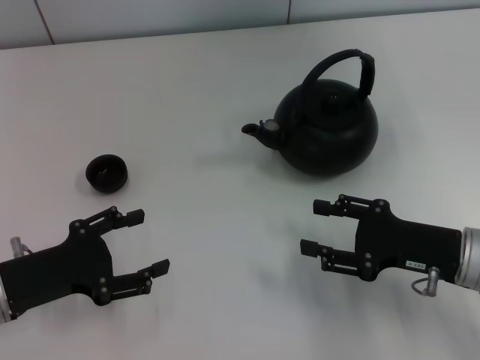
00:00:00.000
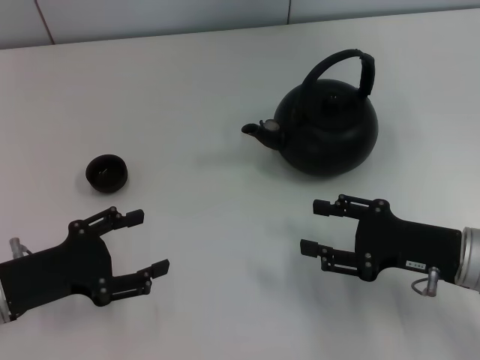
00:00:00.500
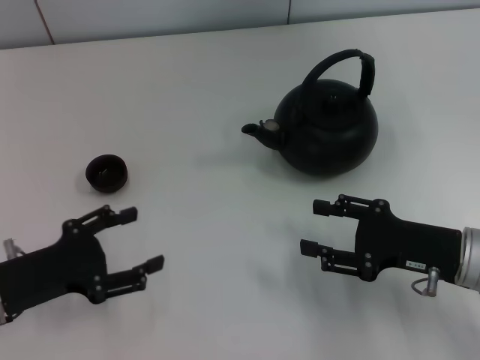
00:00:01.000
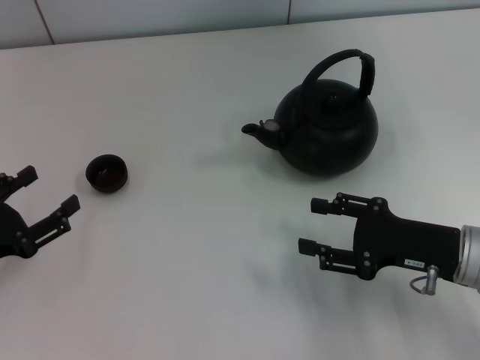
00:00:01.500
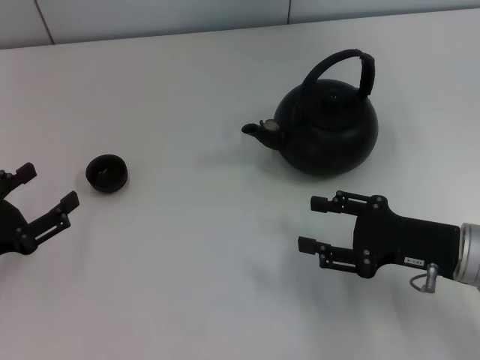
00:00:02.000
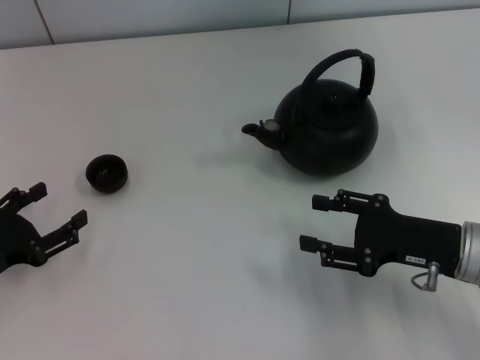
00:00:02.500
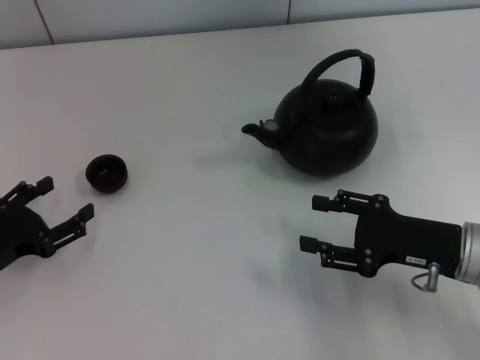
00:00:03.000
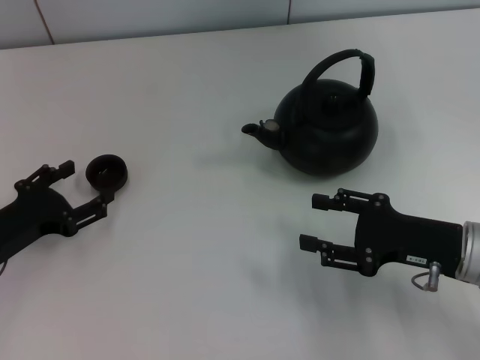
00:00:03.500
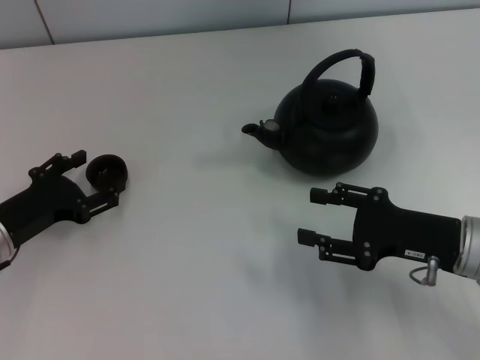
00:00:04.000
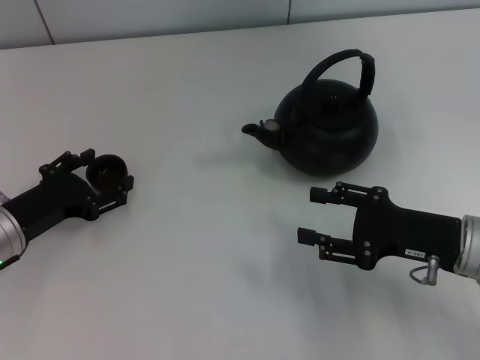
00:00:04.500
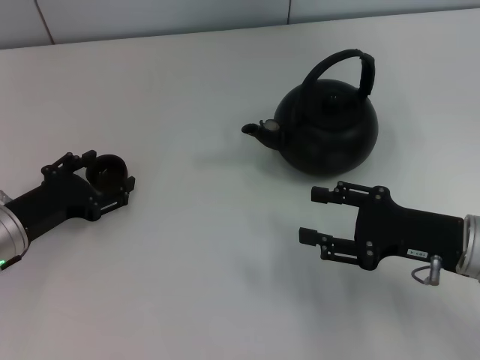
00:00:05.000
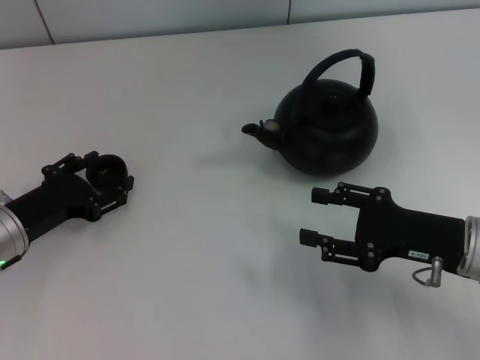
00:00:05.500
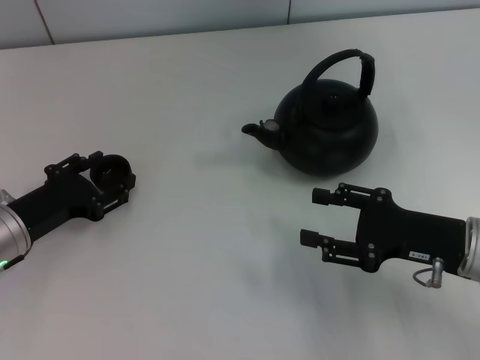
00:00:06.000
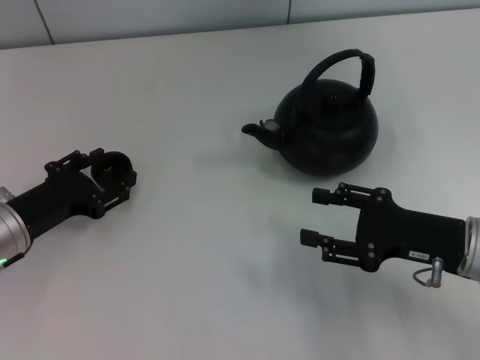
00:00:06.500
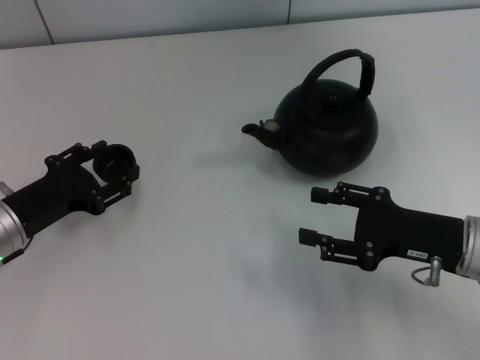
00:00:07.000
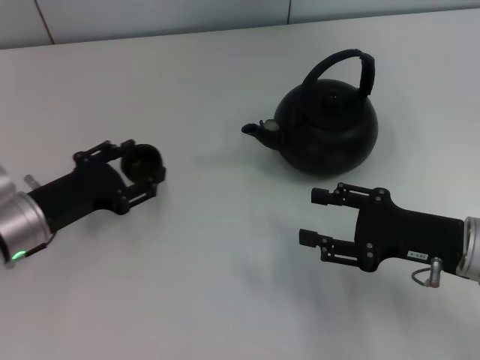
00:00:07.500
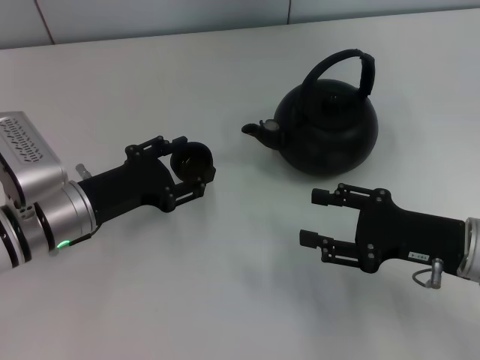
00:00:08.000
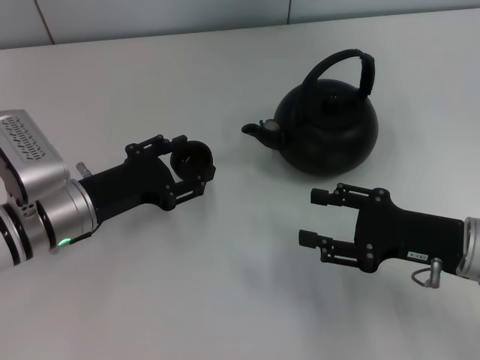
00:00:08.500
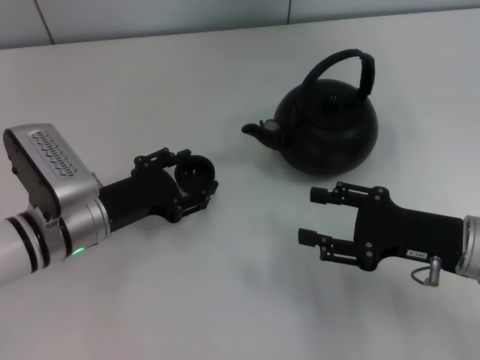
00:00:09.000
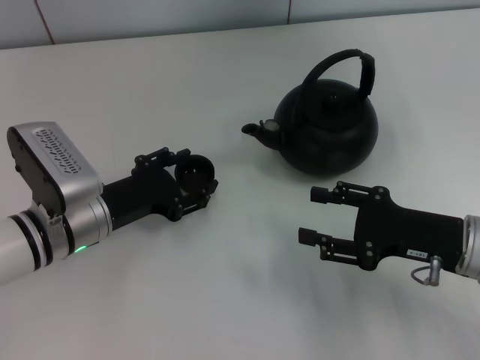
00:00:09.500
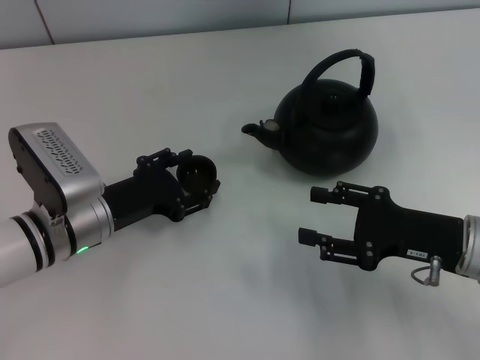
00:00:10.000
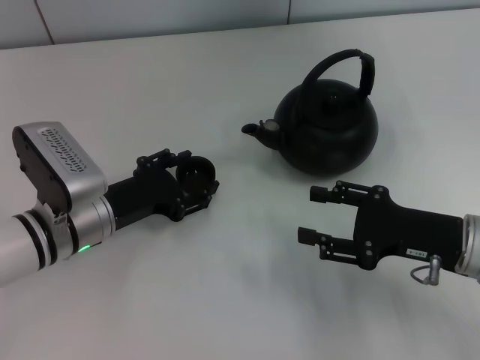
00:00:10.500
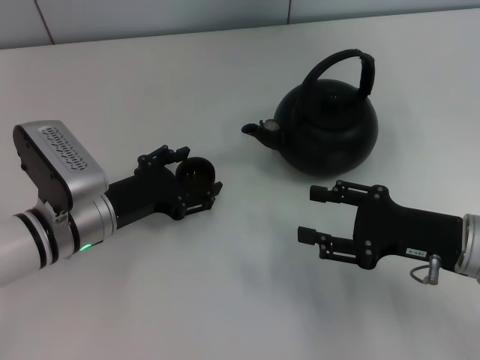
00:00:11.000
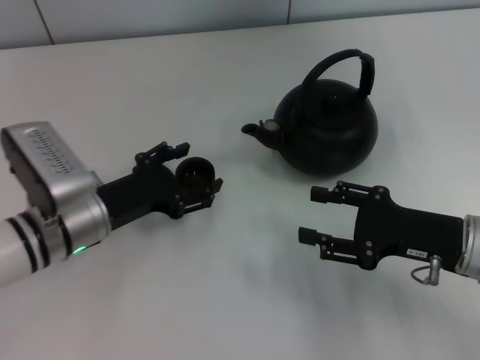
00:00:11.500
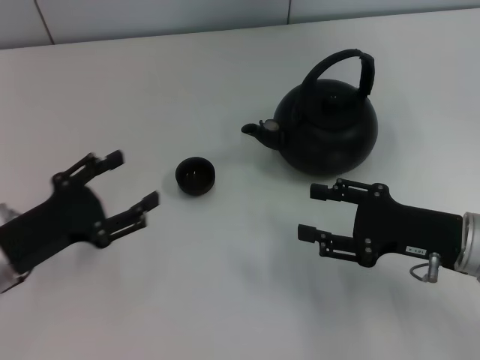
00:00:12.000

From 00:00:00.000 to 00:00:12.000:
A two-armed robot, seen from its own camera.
Task of the whole recording: Grasp the handle of the teapot with one hand and pour tea into the teacup.
Step, from 00:00:00.000 to 00:00:06.500: Pick up the teacup with the left gripper.
Step, from 00:00:07.000 to 00:00:11.500: Place the teacup in the center of view with the left gripper.
From 00:00:00.000 to 00:00:02.000: The left gripper moves to the left, about 5 cm.
From 00:00:02.000 to 00:00:04.000: The left gripper is displaced forward by approximately 5 cm.
From 00:00:04.000 to 00:00:06.000: The left gripper closes.
From 00:00:06.000 to 00:00:08.000: The left gripper goes some 5 cm to the right.
From 00:00:08.000 to 00:00:10.000: The grippers move only a little.
From 00:00:10.000 to 00:00:12.000: The left gripper travels to the left and backward by approximately 10 cm, and opens its fingers.

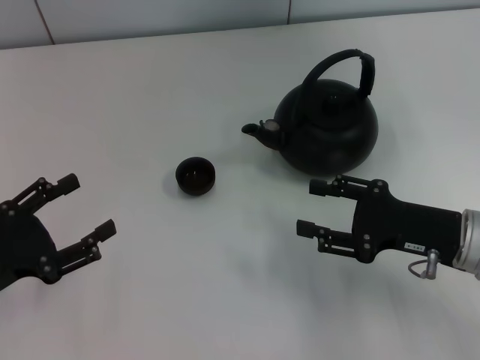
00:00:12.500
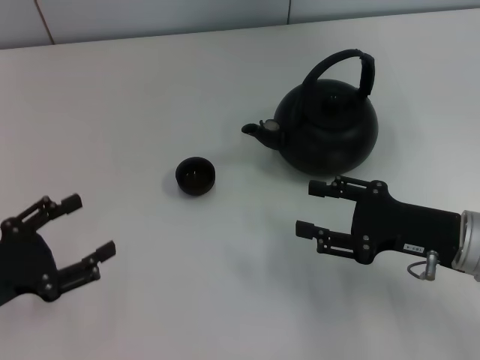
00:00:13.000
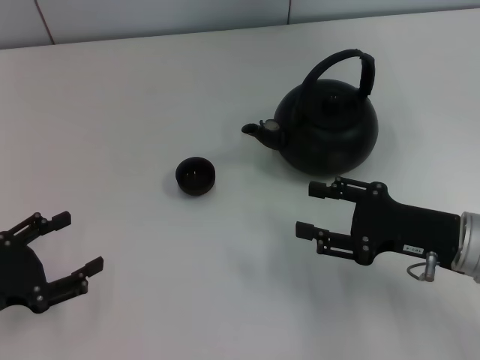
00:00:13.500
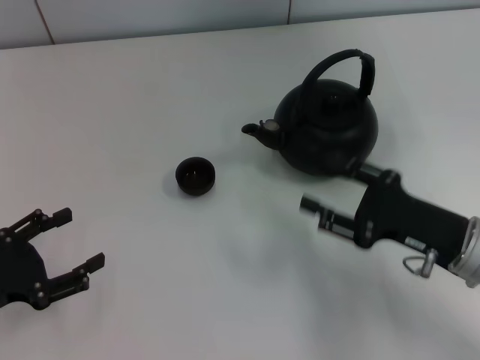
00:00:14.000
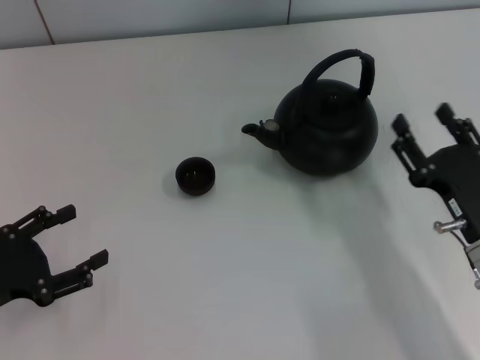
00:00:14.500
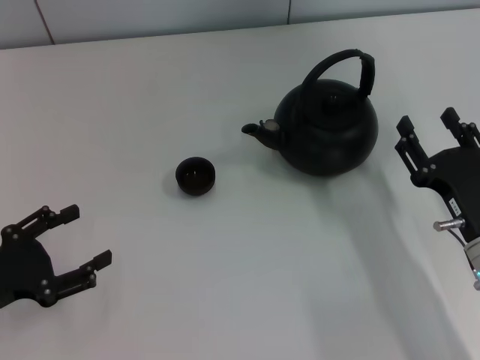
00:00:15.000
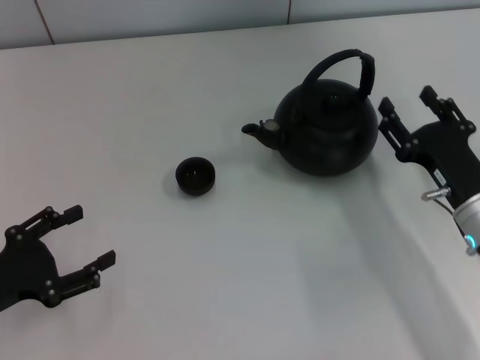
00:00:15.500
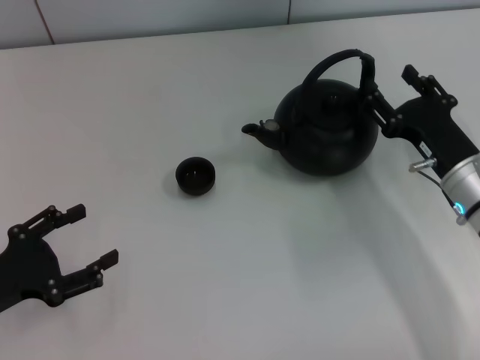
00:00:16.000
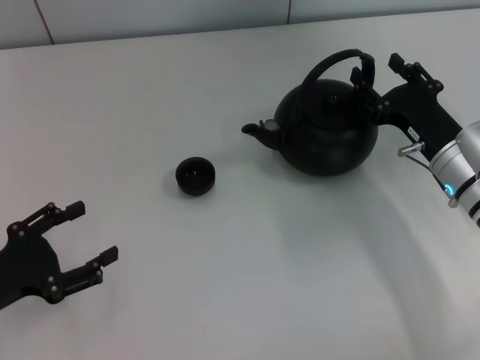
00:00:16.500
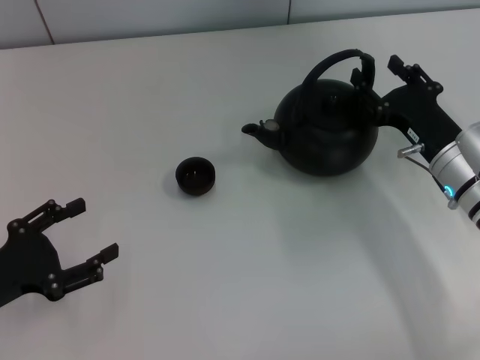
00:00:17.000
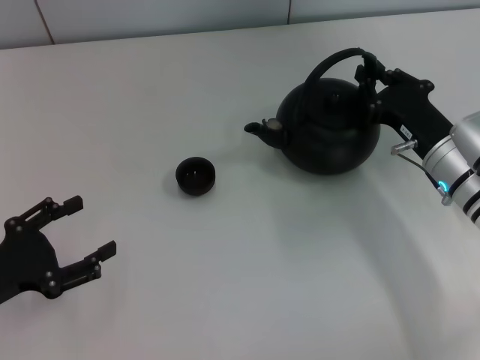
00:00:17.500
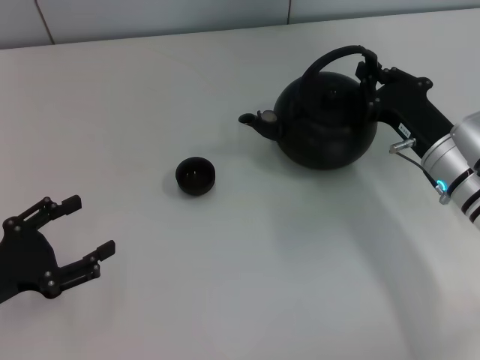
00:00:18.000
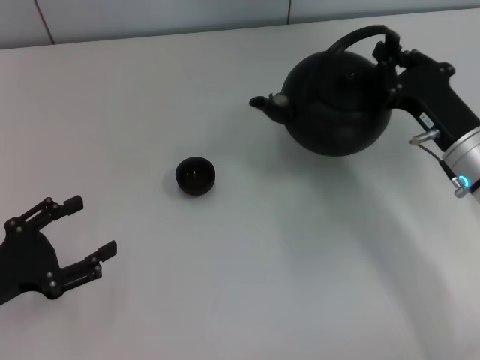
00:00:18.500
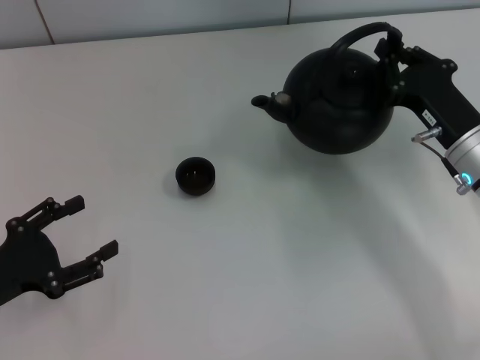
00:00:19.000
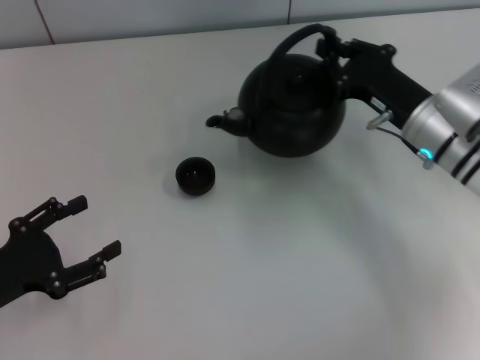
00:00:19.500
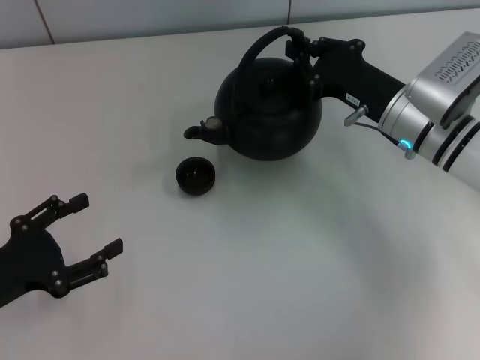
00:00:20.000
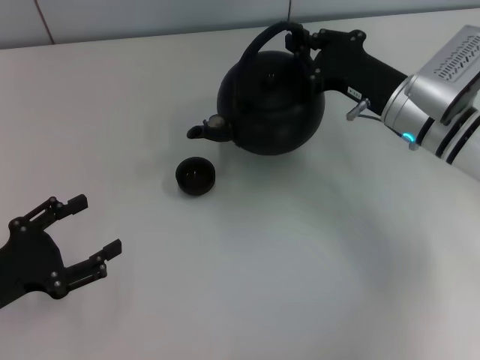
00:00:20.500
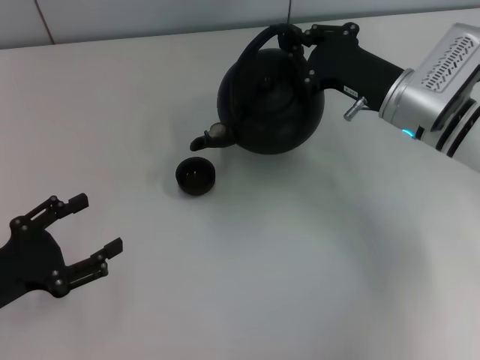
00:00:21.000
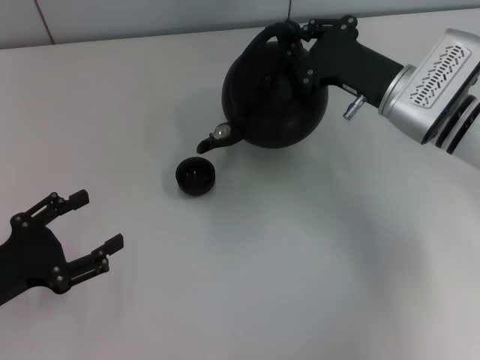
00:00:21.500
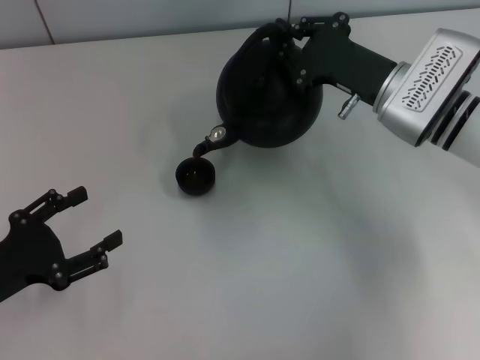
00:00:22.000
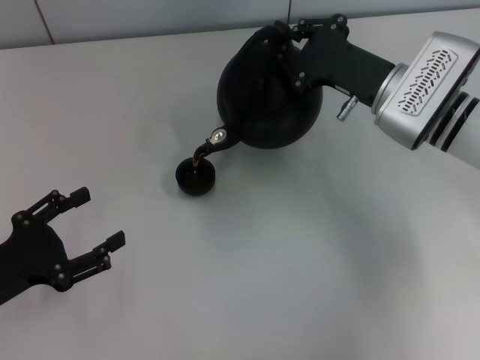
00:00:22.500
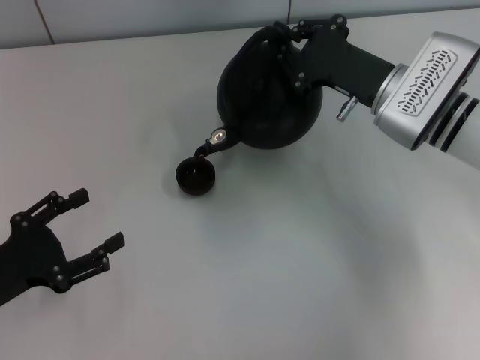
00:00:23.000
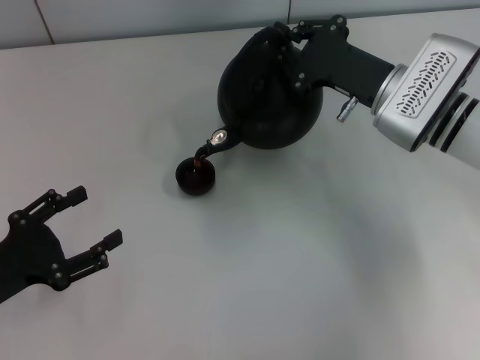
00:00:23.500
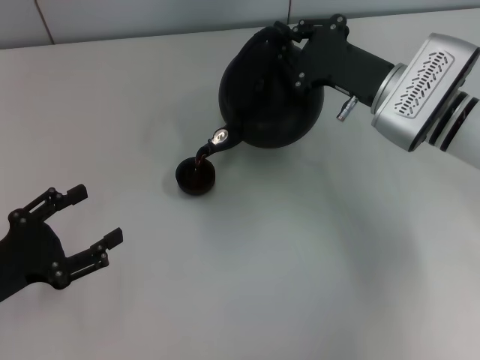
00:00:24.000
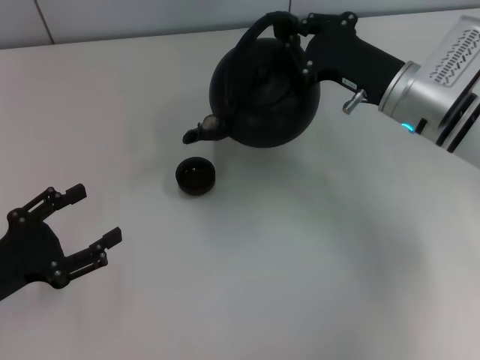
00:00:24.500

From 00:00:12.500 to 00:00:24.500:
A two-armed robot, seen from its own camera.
Task of the whole recording: Grasp the handle of the teapot with one hand and pour tea into the teacup.
Step, from 00:00:12.500 to 00:00:19.000: Pick up the teapot with the right gripper.
From 00:00:14.500 to 00:00:16.500: The right gripper travels forward by some 10 cm.
From 00:00:16.500 to 00:00:18.500: The right gripper closes.
From 00:00:18.500 to 00:00:20.500: The right gripper moves forward, roughly 5 cm.
From 00:00:22.500 to 00:00:24.500: The grippers stay close to where they were, moving slightly.

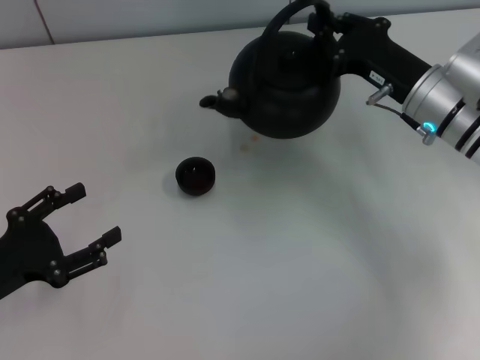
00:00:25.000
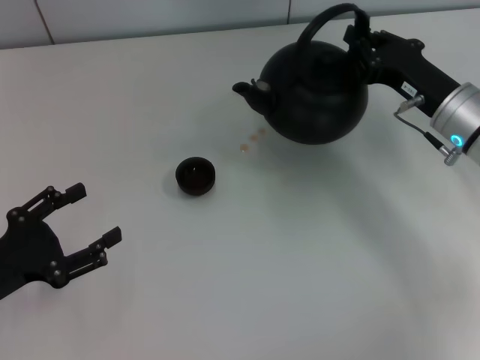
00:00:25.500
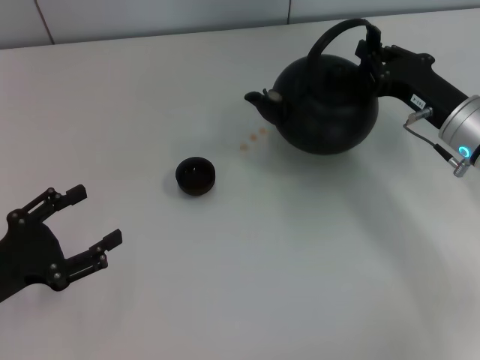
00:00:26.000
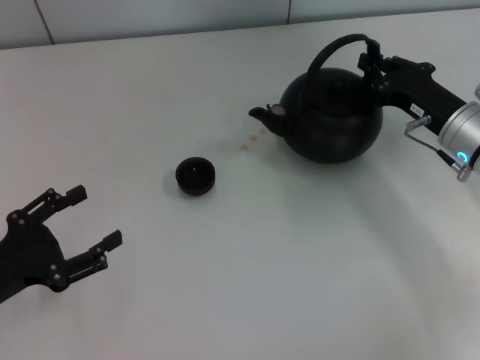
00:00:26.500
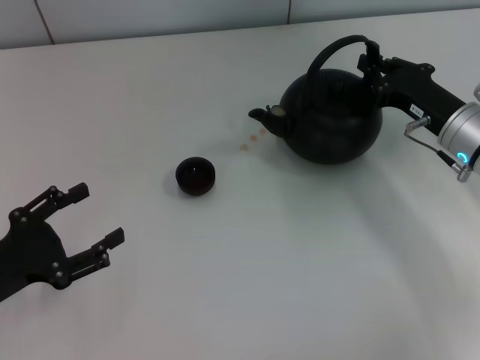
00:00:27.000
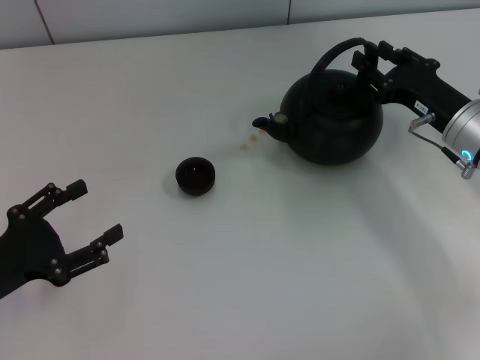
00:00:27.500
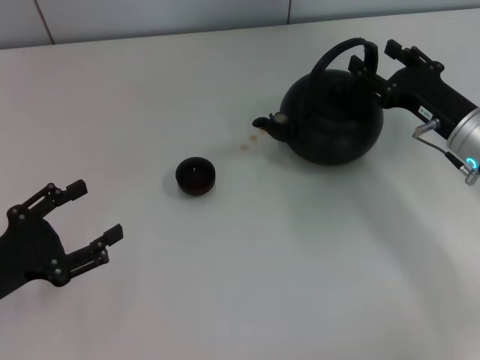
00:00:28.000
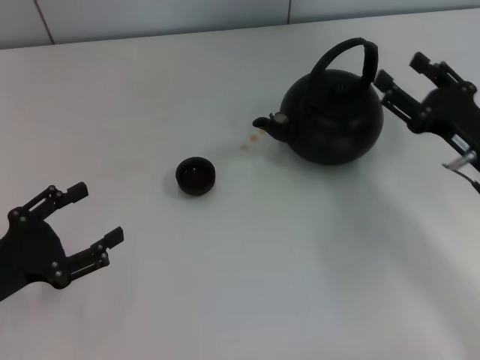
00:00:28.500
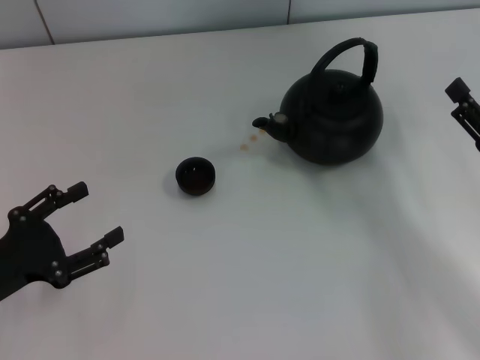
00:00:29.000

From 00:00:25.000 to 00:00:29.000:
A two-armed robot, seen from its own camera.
Task of the whole recording: Grasp the handle of the teapot with one hand and pour tea into the teacup.
Step, from 00:00:25.500 to 00:00:28.500: Put down the teapot with the right gripper.
From 00:00:25.000 to 00:00:27.000: The right gripper changes place by approximately 5 cm.
From 00:00:27.000 to 00:00:29.000: The right gripper goes approximately 15 cm backward and to the right, and opens.
